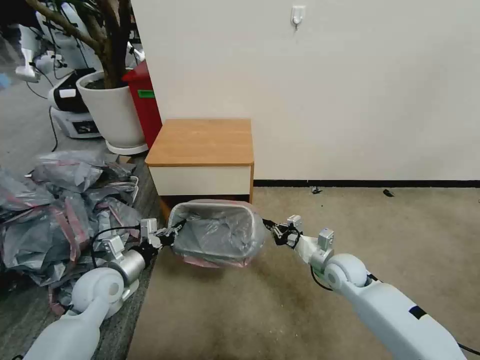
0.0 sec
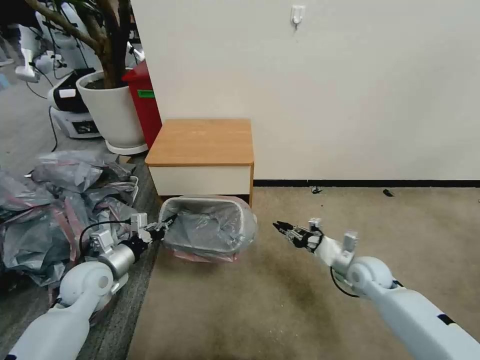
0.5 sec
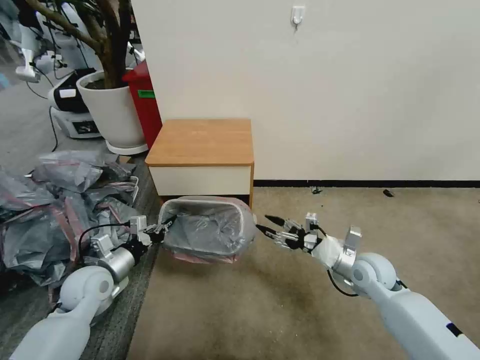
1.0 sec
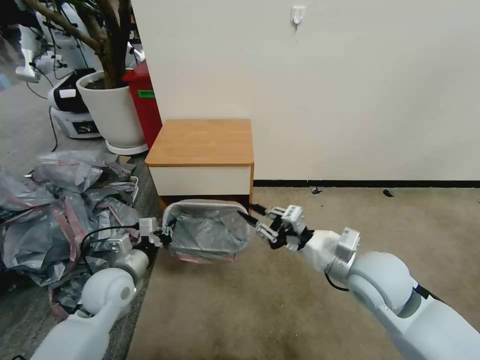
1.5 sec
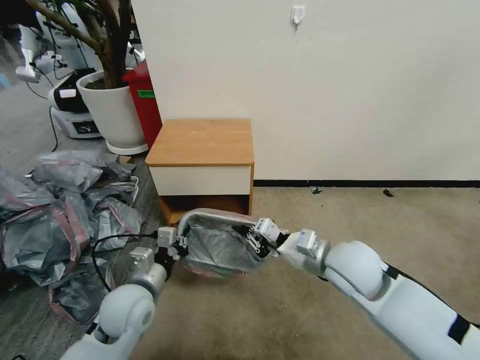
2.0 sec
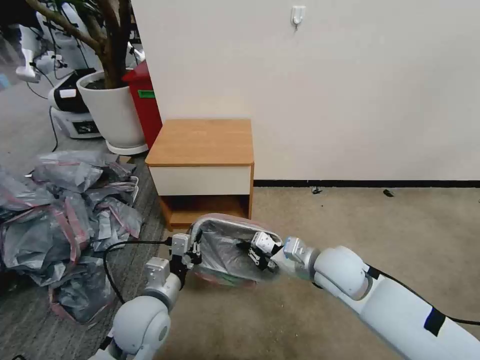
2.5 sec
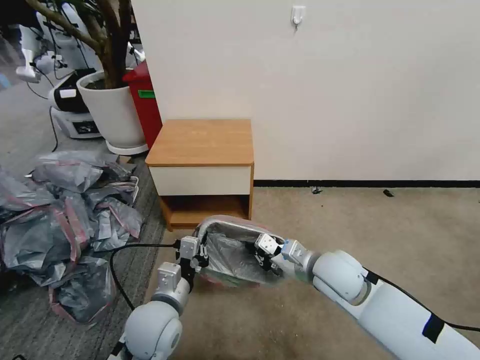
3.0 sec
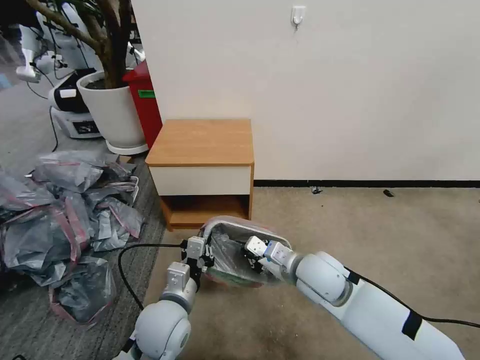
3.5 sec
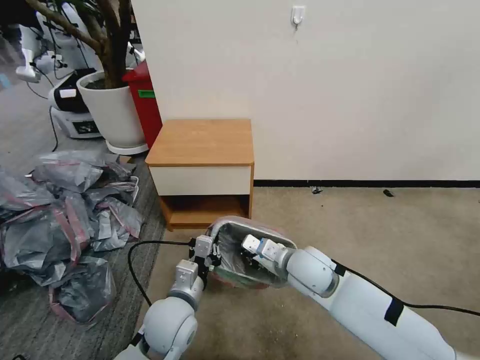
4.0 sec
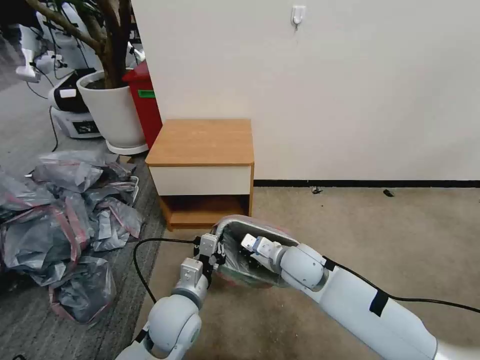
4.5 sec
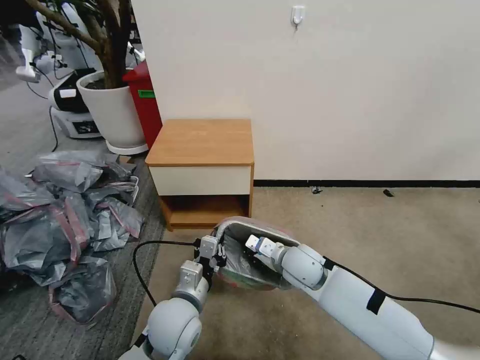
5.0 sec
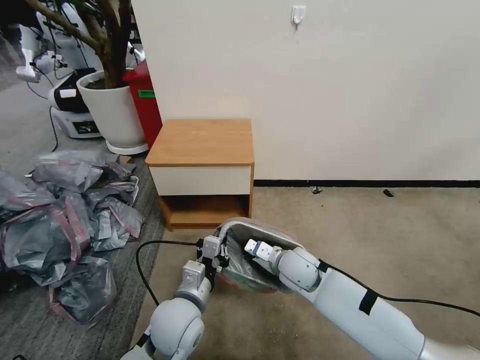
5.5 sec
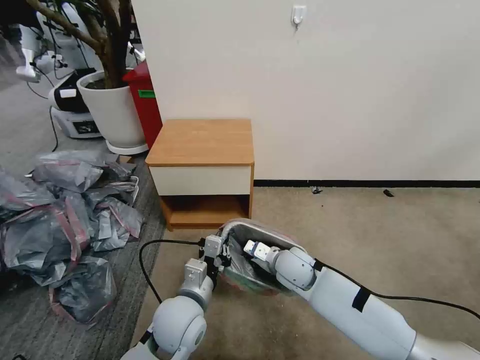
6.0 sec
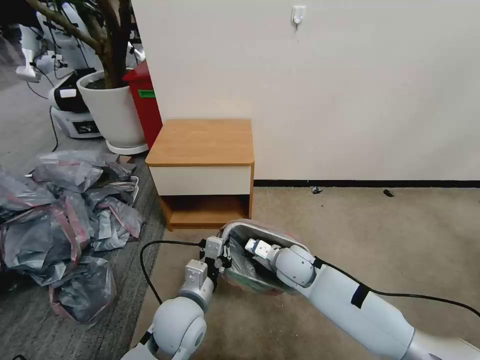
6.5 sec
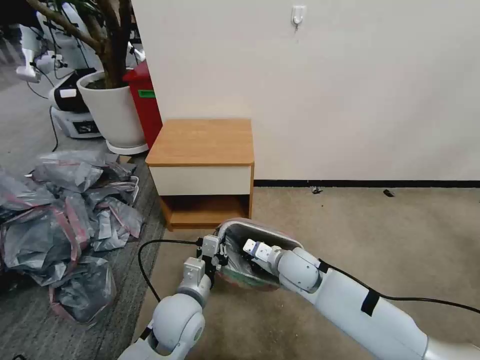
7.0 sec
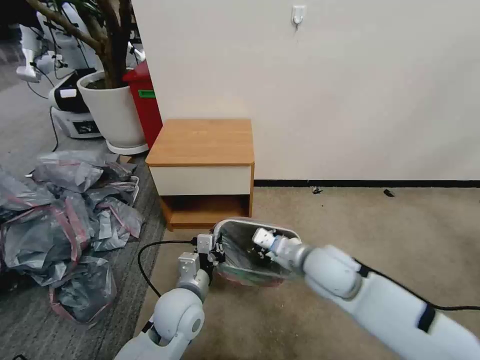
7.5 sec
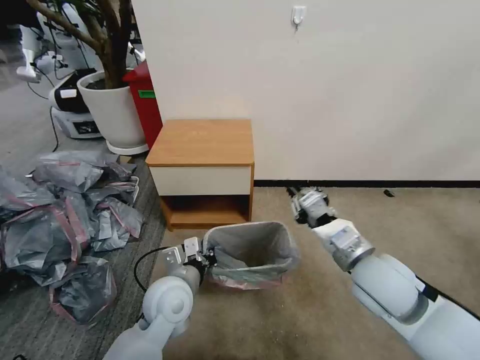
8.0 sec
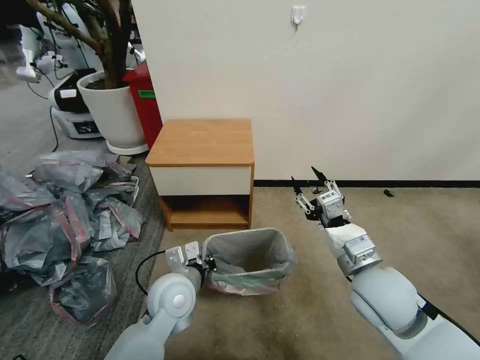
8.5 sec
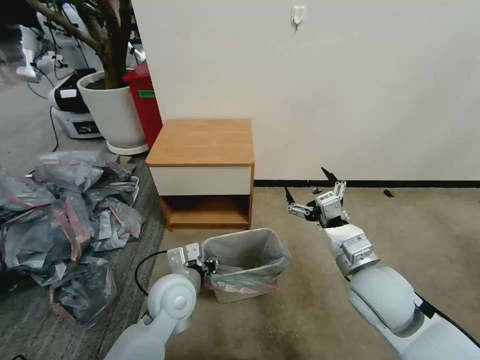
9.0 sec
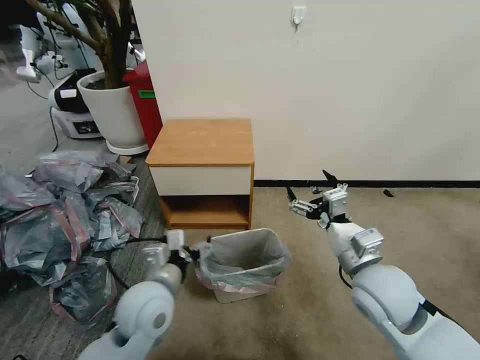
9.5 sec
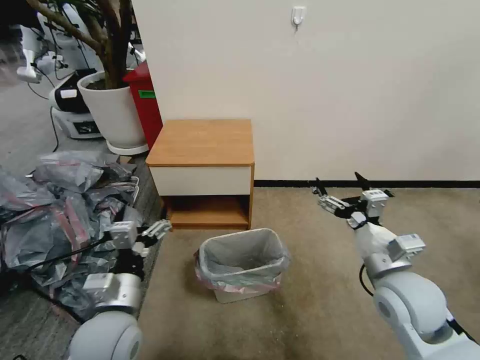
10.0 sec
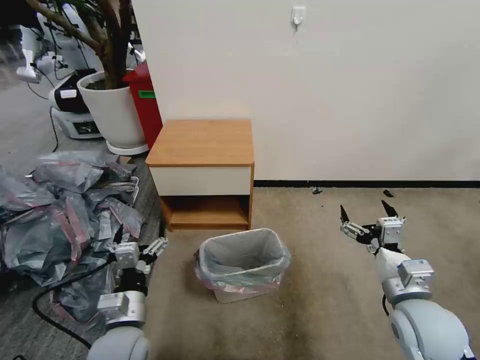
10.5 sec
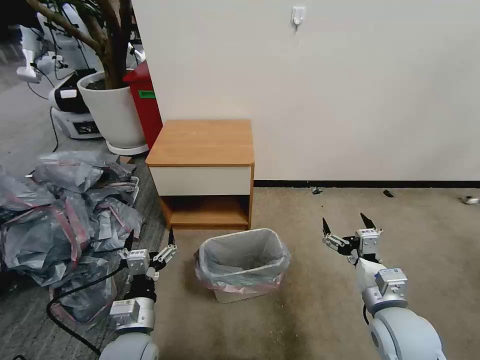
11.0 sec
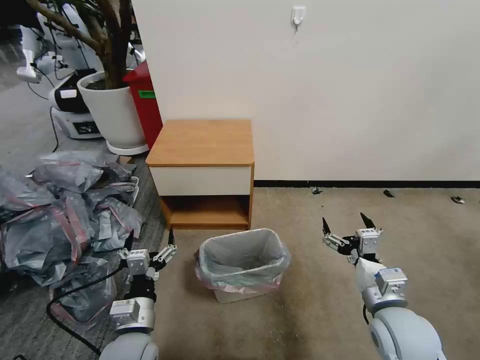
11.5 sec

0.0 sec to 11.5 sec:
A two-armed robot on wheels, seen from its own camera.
Task of the whole recording: Pick up the garbage bag from the table and place it over the trash can.
0.0 sec to 2.0 sec: The right gripper goes some 15 cm upward, and opens, then closes once more; the left gripper is displaced to the right by roughly 10 cm.
2.0 sec to 4.0 sec: The right gripper heads downward and to the left, covering roughly 10 cm; the left gripper moves to the right, some 10 cm.
4.0 sec to 6.0 sec: The right gripper heads downward, covering some 5 cm.
6.0 sec to 7.5 sec: The right gripper is displaced upward by approximately 10 cm.
7.5 sec to 9.5 sec: The left gripper is displaced upward by some 5 cm, and opens its fingers. Meanwhile the right gripper goes some 10 cm to the right and backward, and opens.
9.5 sec to 11.5 sec: Both grippers travel together downward and backward, some 10 cm.

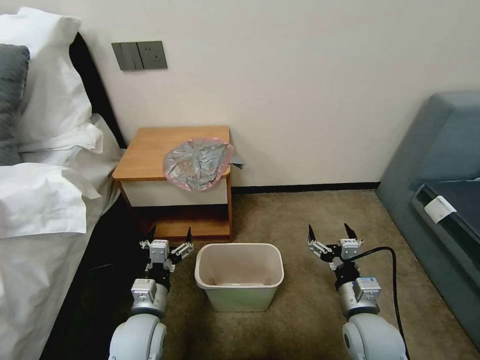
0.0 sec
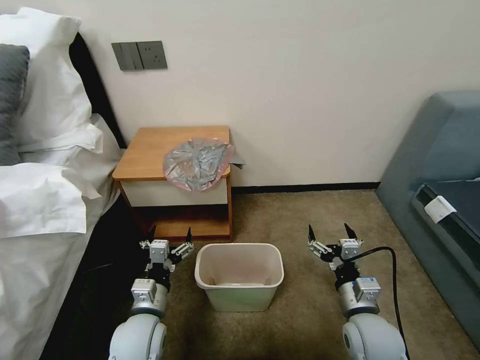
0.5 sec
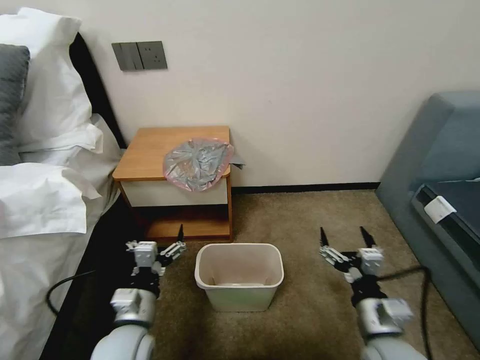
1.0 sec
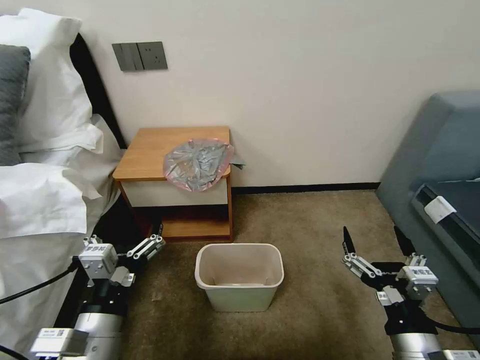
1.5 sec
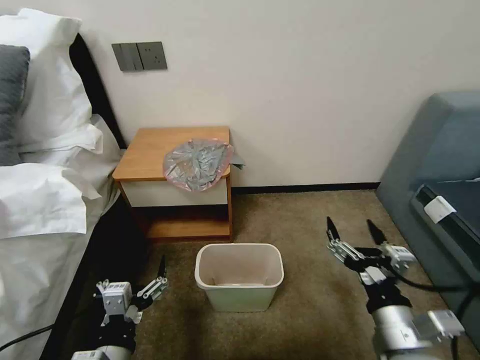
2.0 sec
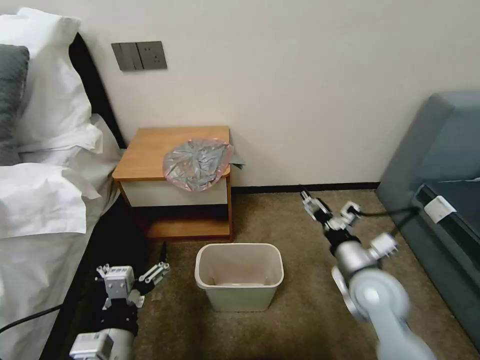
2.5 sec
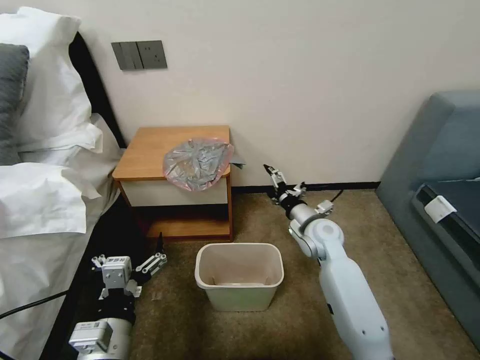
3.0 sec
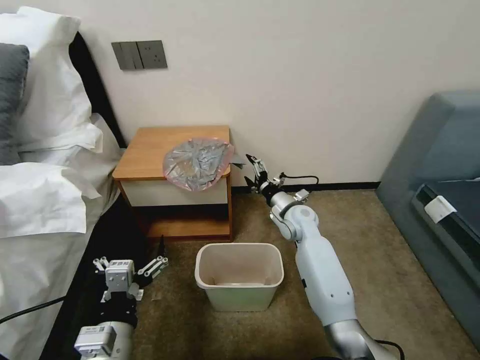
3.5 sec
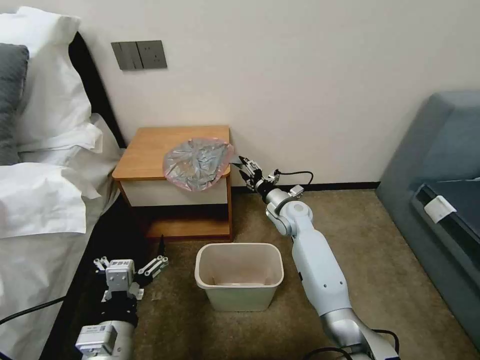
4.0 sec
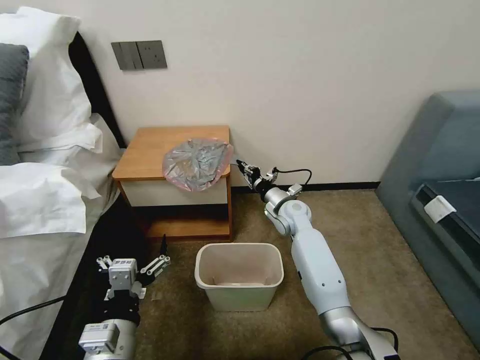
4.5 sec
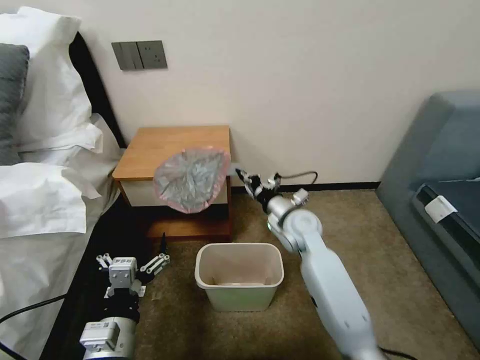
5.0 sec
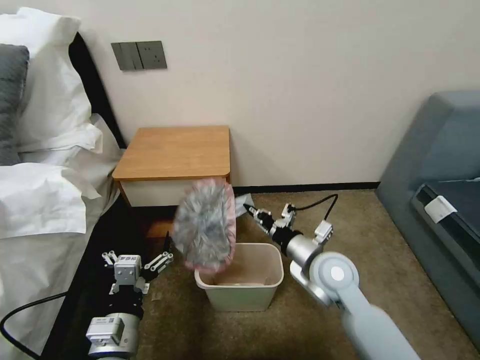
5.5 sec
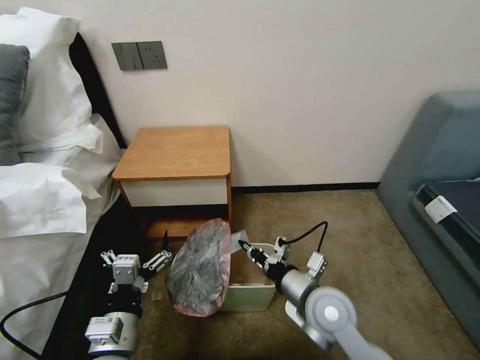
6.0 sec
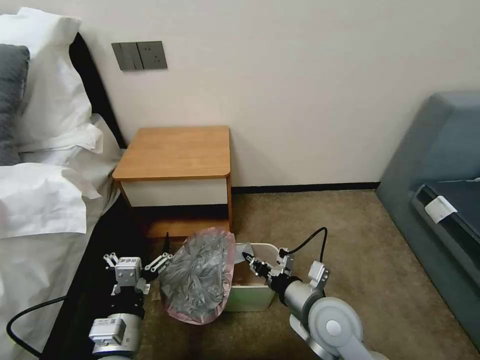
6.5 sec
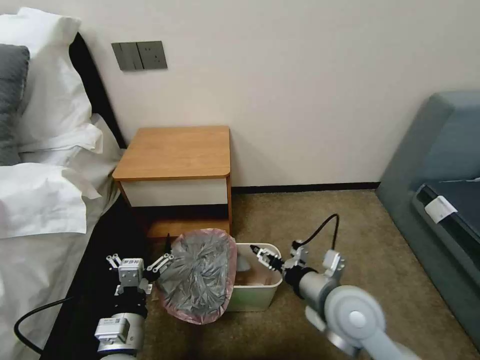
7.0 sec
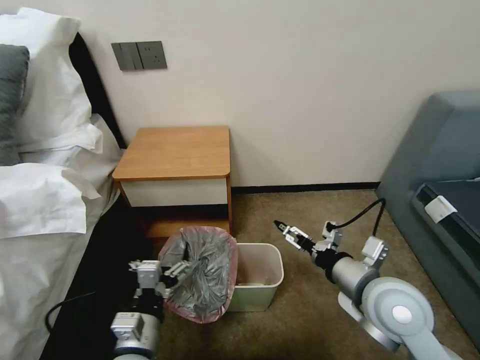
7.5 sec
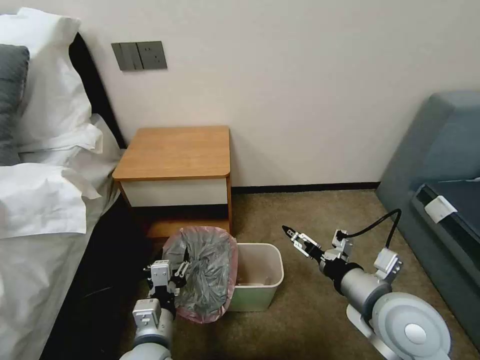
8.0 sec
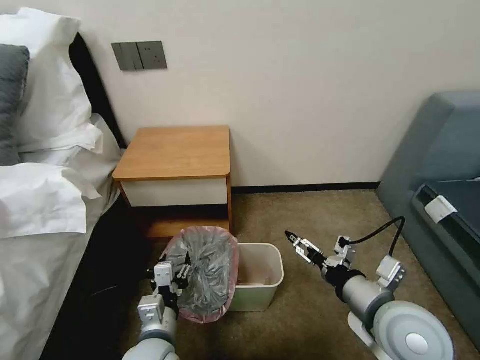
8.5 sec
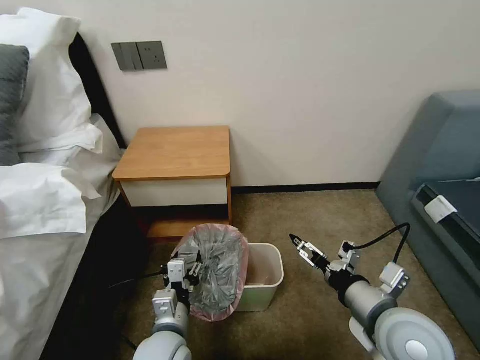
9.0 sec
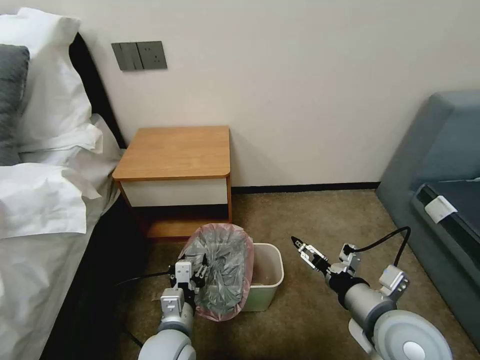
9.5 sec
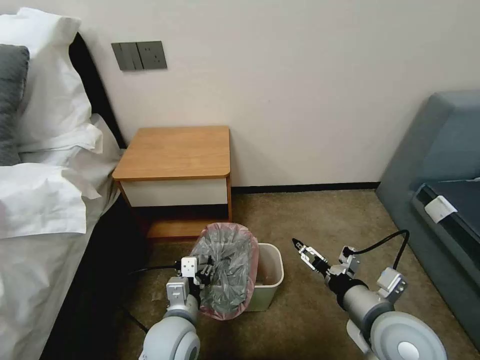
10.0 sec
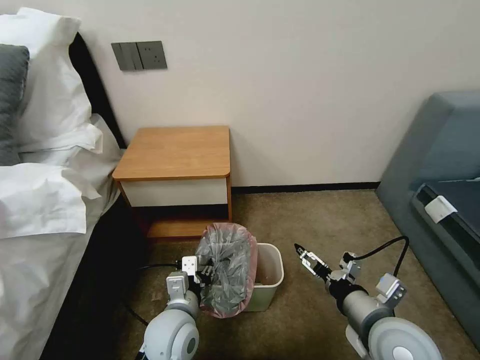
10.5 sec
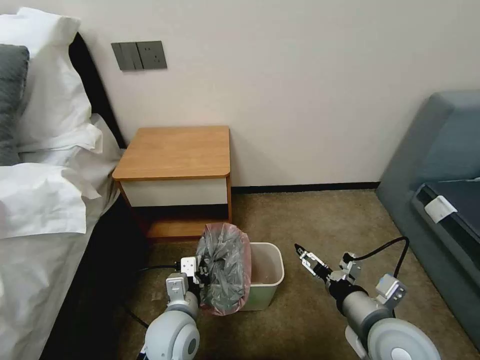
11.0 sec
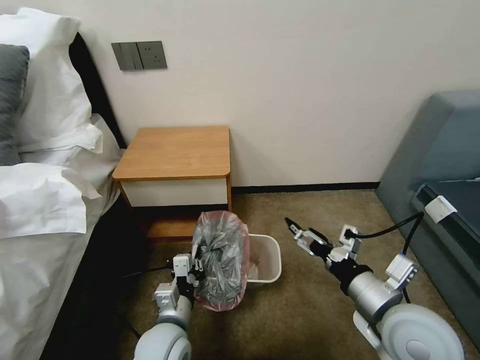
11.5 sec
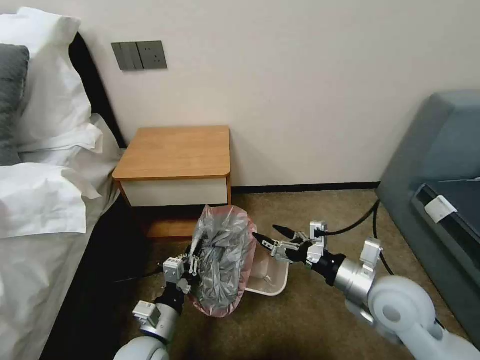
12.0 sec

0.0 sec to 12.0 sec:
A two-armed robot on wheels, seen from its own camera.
Task of the whole recording: Pick up the garbage bag from the table and place it over the trash can.
2.0 sec to 4.0 sec: The right gripper heads forward, covering approximately 35 cm.
4.0 sec to 6.0 sec: The right gripper shifts approximately 25 cm backward, and closes its fingers.
6.0 sec to 8.0 sec: The right gripper travels upward and to the right by about 10 cm, and opens up. Meanwhile the left gripper shifts by roughly 5 cm, and closes.
8.0 sec to 10.0 sec: The left gripper shifts by roughly 5 cm.
10.0 sec to 12.0 sec: The right gripper heads forward, covering some 5 cm. Meanwhile the left gripper is displaced to the left by some 5 cm, and closes.

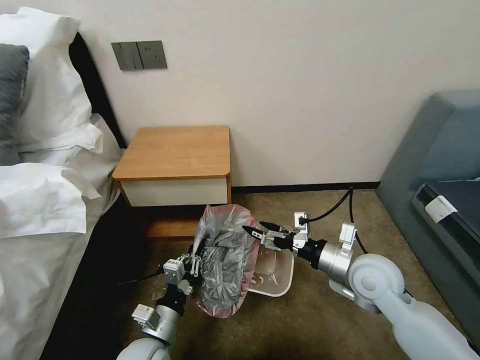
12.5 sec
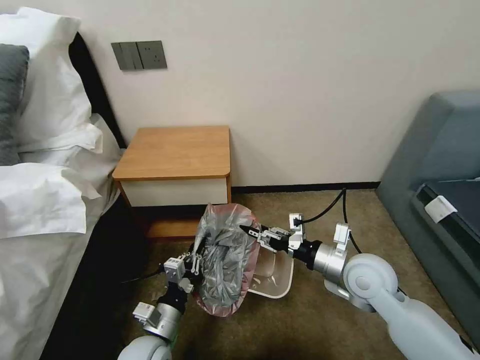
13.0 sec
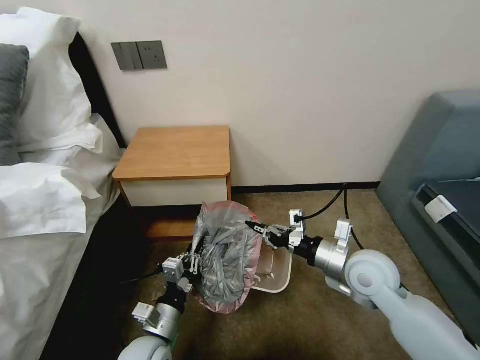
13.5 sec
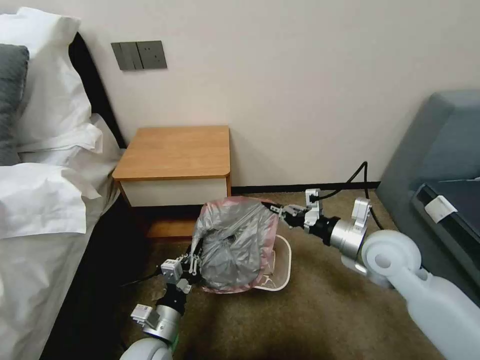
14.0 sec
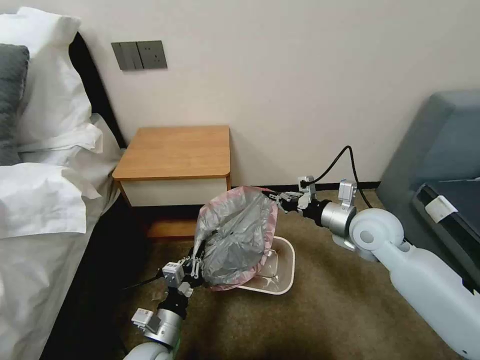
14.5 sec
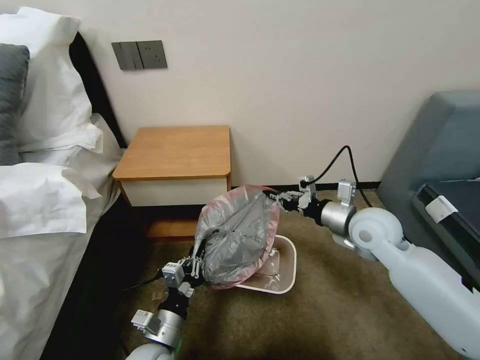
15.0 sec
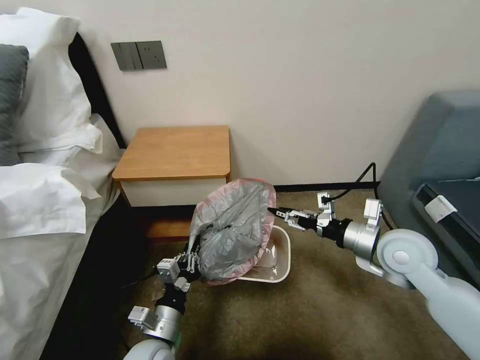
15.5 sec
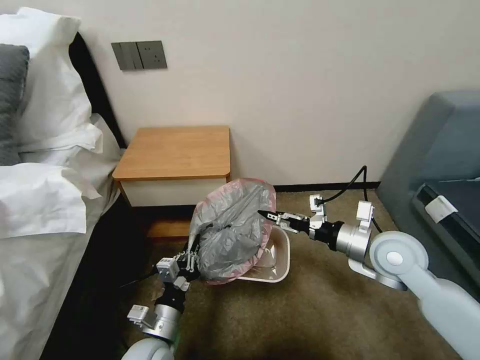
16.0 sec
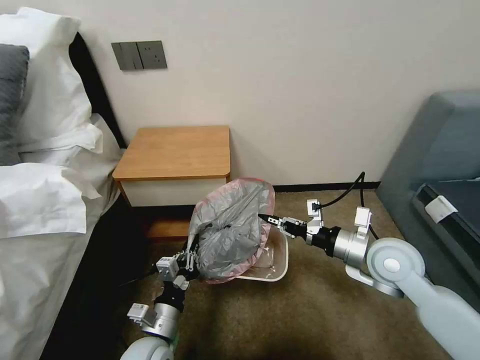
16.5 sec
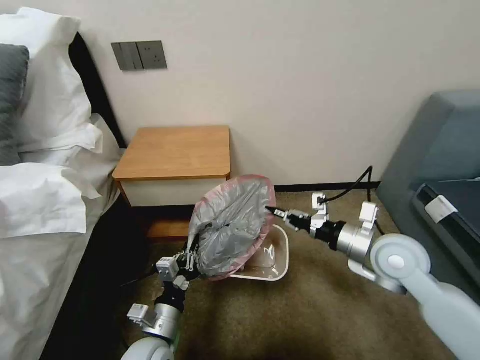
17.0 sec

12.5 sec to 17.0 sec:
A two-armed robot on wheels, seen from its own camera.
Task of the whole recording: Pick up the garbage bag from the table and place it over the trash can.
12.5 sec to 14.5 sec: The right gripper shifts some 10 cm forward and upward, and closes.
14.5 sec to 17.0 sec: The right gripper heads backward, covering some 5 cm, and opens, then closes again.
